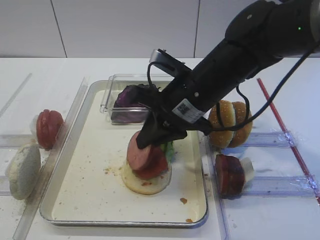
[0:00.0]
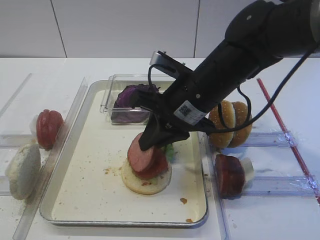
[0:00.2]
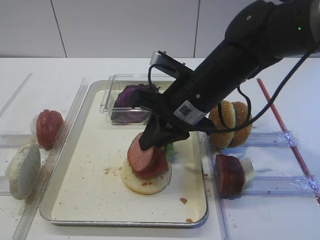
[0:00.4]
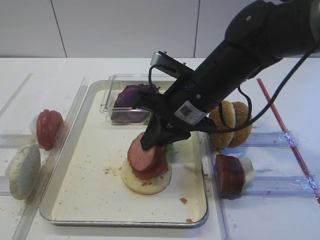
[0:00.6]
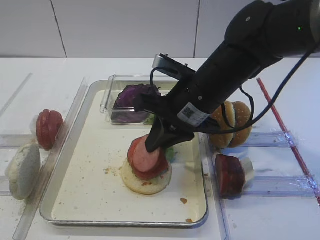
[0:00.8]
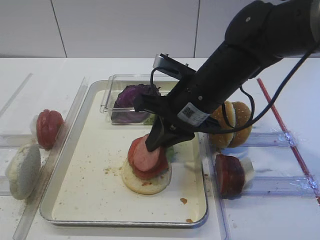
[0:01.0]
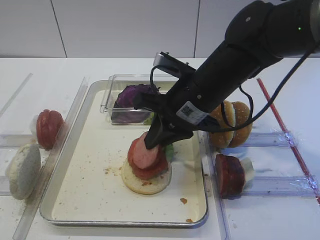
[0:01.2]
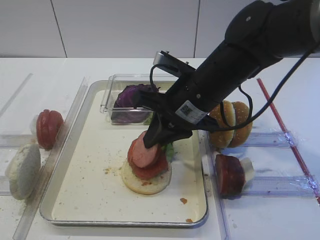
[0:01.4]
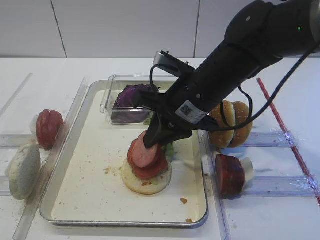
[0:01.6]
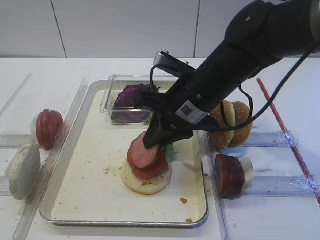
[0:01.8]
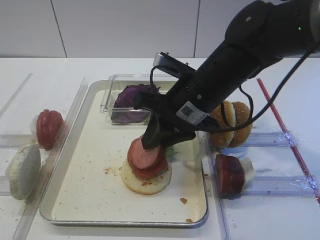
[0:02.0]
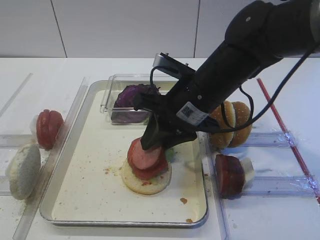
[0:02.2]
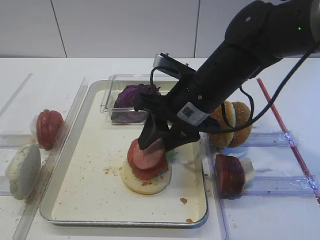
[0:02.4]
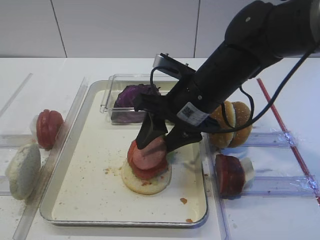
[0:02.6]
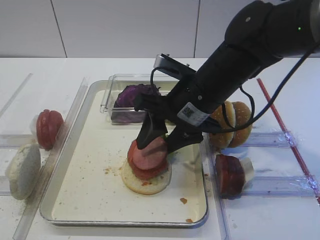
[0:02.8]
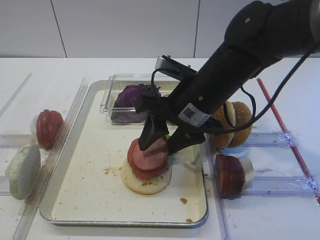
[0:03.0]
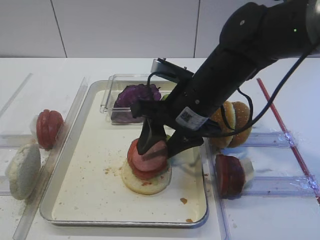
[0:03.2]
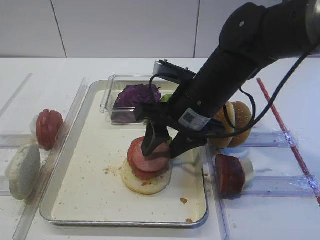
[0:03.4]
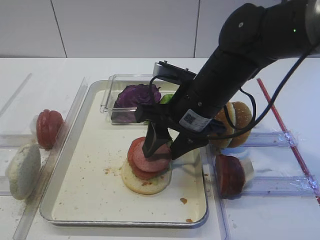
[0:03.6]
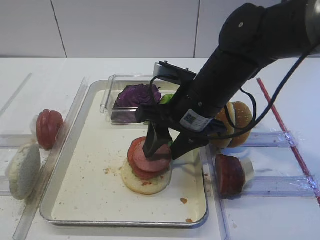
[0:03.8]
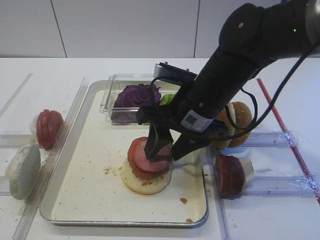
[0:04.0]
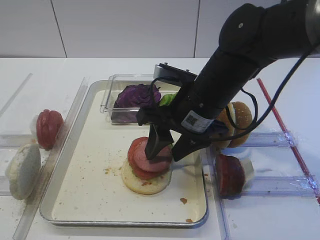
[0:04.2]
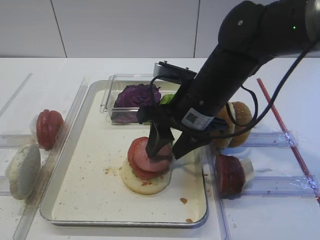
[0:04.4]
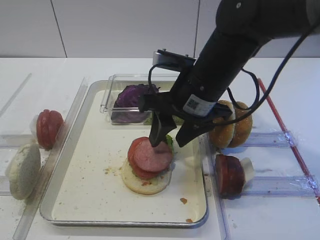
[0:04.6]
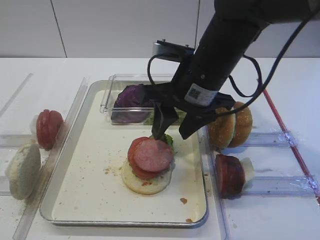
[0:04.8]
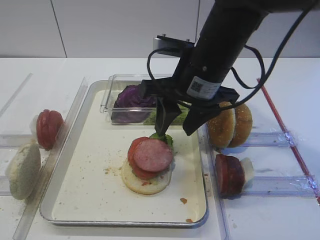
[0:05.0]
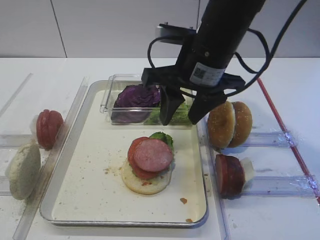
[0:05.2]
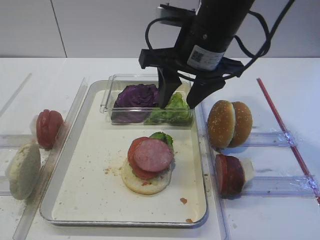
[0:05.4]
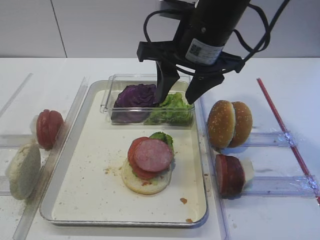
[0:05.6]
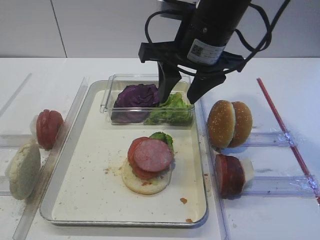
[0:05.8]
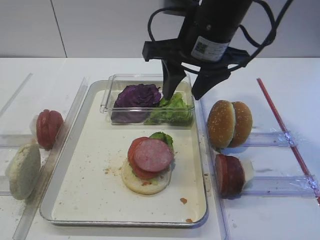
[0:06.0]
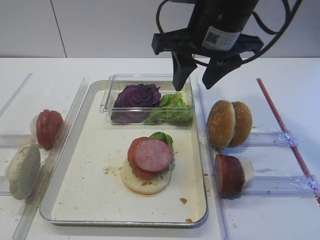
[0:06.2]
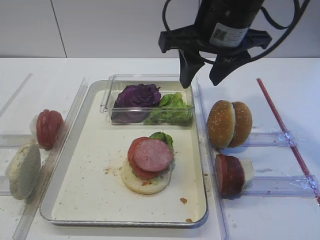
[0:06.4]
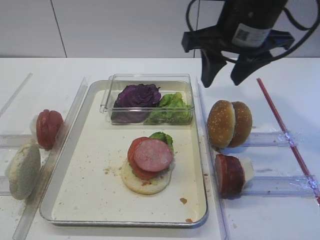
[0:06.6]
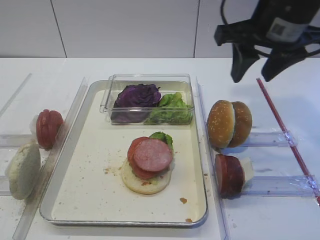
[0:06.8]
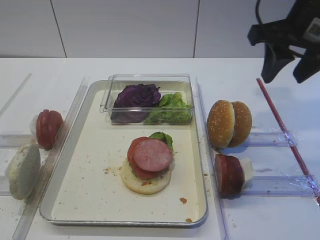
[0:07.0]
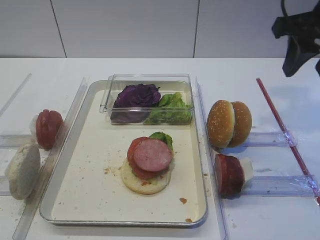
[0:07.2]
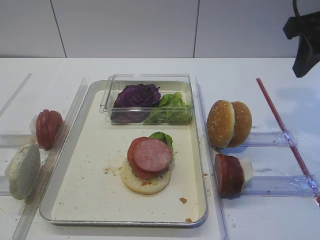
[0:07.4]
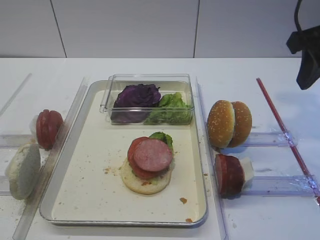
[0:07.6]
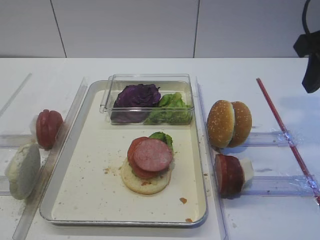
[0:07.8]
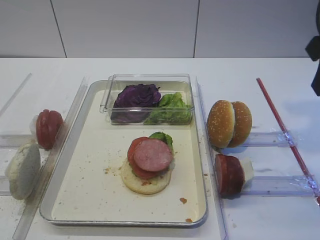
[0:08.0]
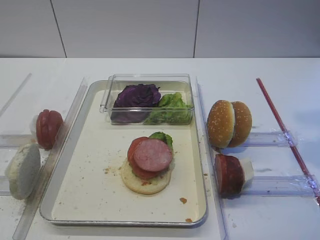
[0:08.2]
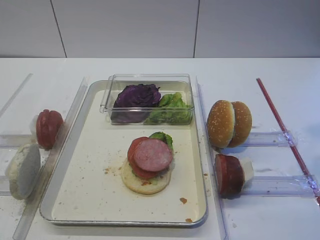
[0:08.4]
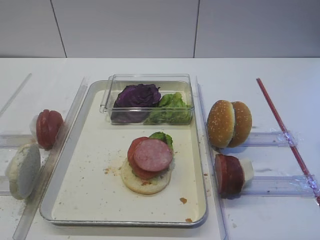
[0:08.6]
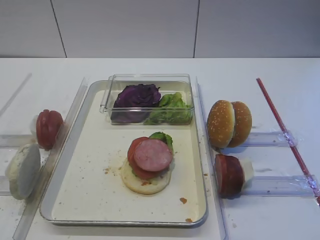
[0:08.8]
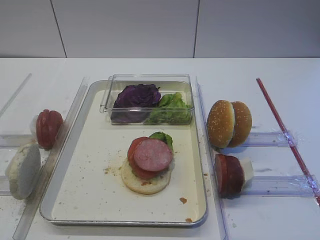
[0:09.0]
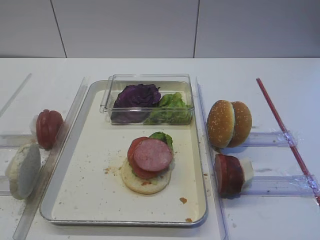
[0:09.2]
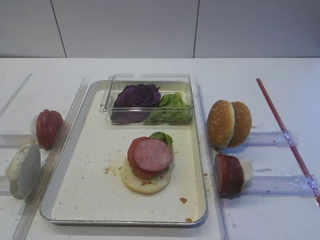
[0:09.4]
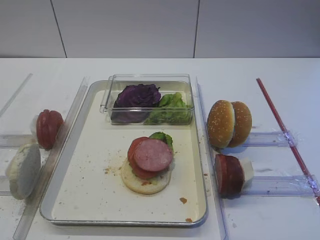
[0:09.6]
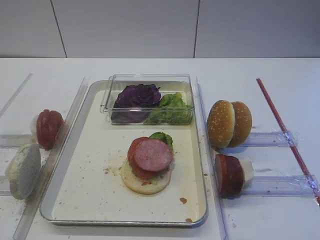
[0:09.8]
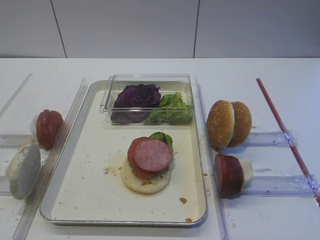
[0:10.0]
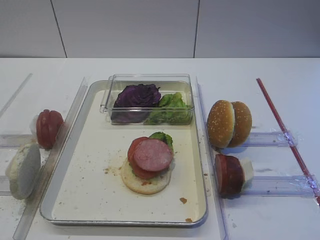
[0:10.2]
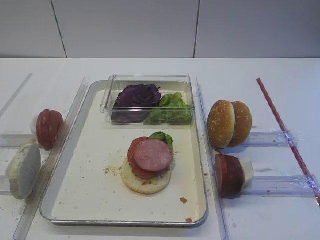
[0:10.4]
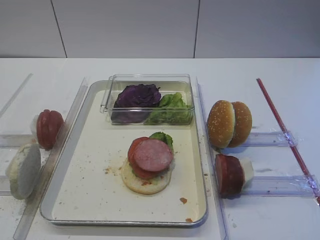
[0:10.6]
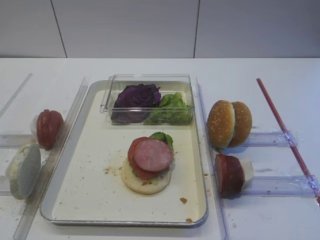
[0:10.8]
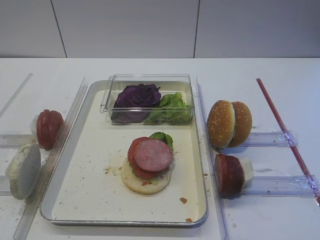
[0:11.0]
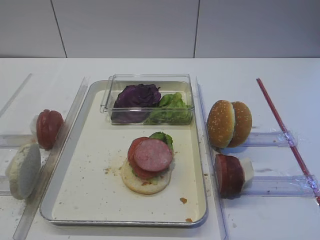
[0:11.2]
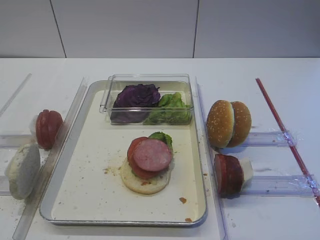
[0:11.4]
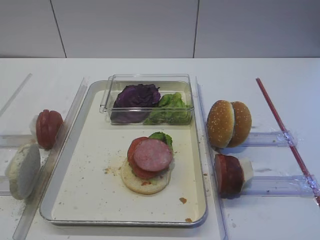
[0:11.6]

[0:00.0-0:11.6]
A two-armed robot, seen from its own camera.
Step, 0:00.0 to 0:04.4: Place the cutlet on the tomato slice with the right gripper.
0:00.0 to 0:01.4: The grippers move only a little.
0:01.4 to 0:02.8: The right gripper opens its fingers.
0:02.8 to 0:04.4: The grippers move only a little.
0:04.4 to 0:05.8: The right gripper travels upward by roughly 10 cm.
0:05.8 to 0:07.2: The right gripper travels to the right by about 15 cm.
0:07.2 to 0:08.8: The right gripper is displaced backward by roughly 20 cm.
0:10.2 to 0:11.6: The two grippers keep their place.

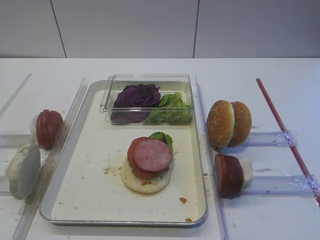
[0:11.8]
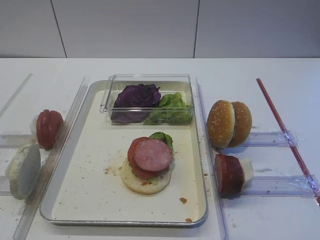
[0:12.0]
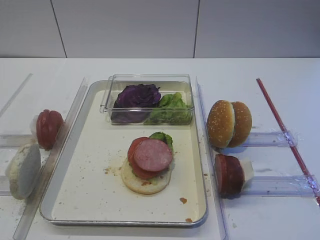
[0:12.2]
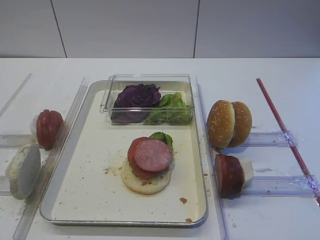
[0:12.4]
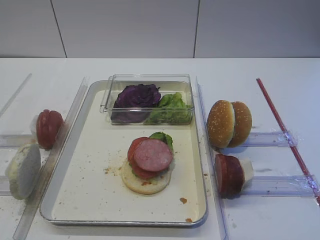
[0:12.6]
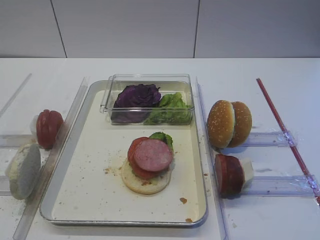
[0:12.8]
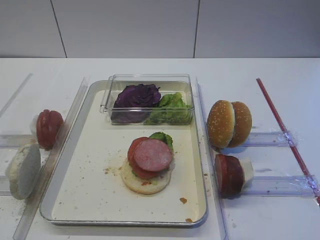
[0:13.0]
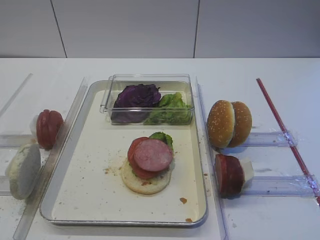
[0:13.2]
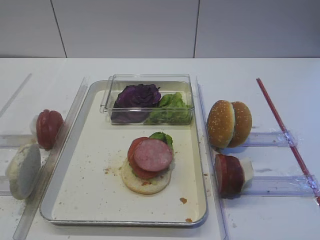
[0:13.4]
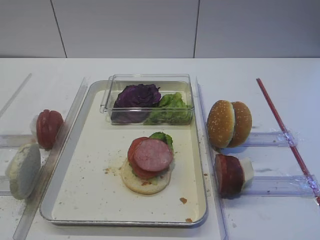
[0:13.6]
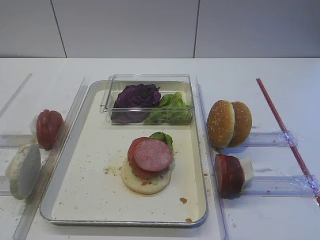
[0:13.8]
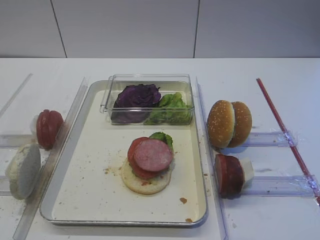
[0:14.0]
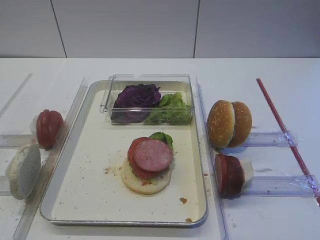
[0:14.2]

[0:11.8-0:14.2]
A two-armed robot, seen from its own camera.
0:11.8 to 0:14.2: The two grippers keep their place.

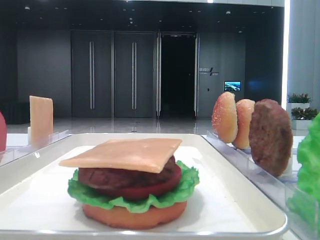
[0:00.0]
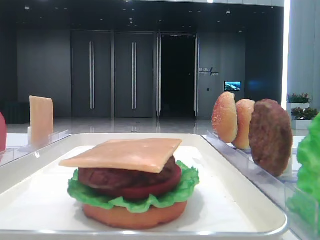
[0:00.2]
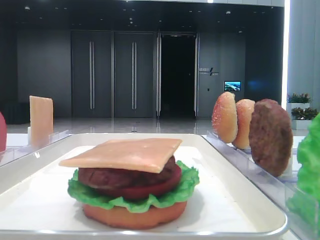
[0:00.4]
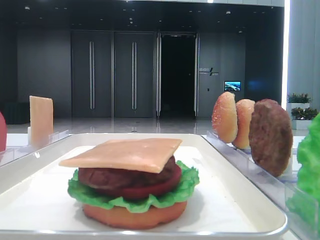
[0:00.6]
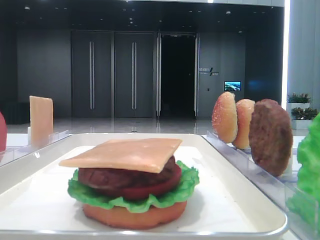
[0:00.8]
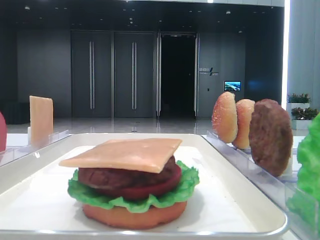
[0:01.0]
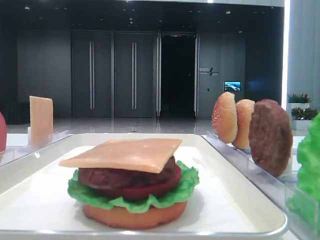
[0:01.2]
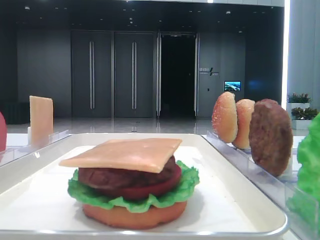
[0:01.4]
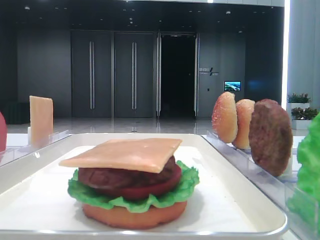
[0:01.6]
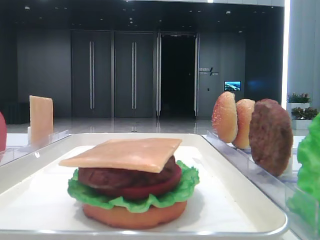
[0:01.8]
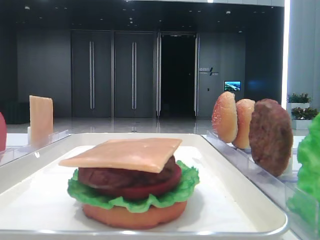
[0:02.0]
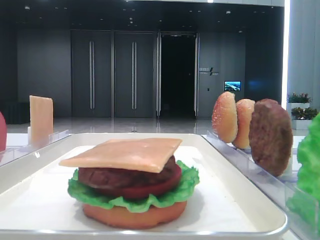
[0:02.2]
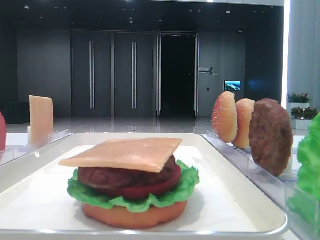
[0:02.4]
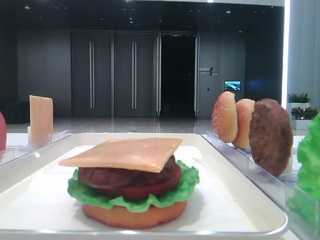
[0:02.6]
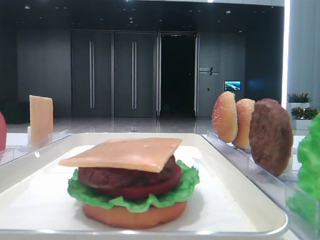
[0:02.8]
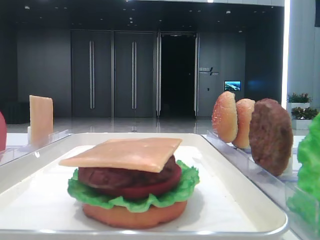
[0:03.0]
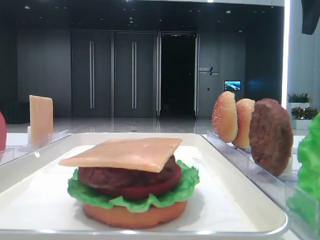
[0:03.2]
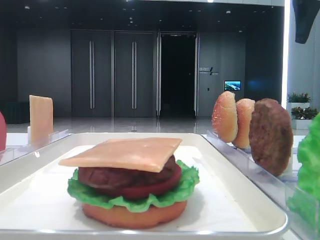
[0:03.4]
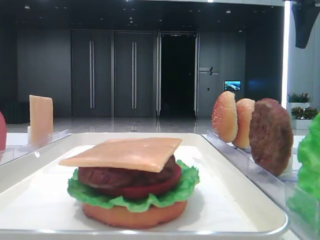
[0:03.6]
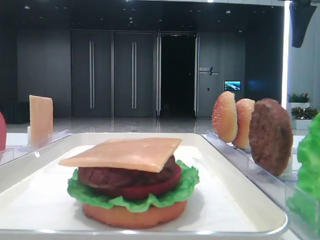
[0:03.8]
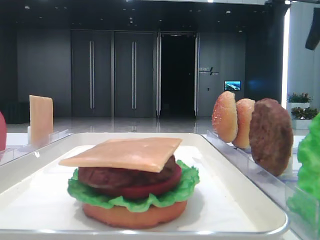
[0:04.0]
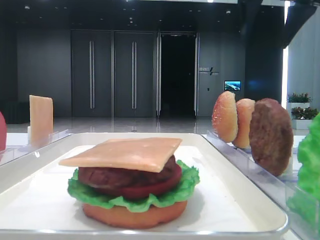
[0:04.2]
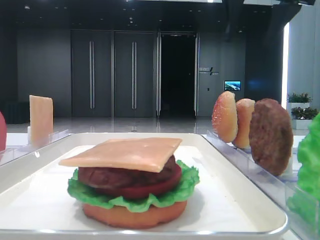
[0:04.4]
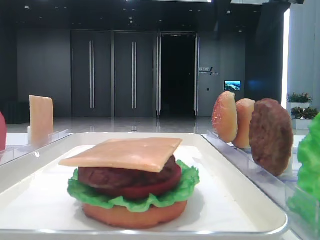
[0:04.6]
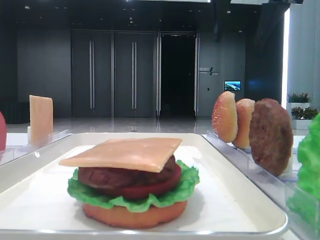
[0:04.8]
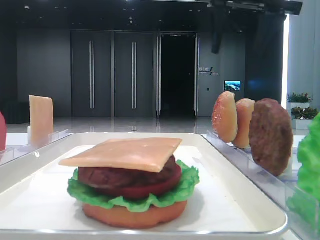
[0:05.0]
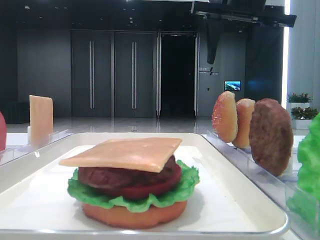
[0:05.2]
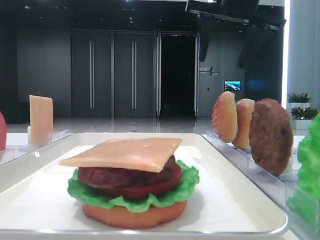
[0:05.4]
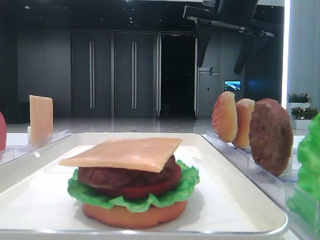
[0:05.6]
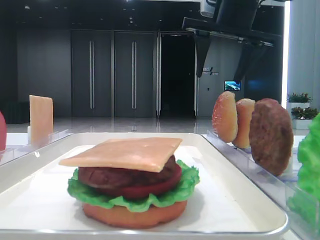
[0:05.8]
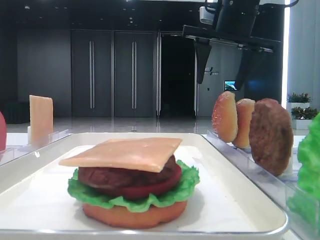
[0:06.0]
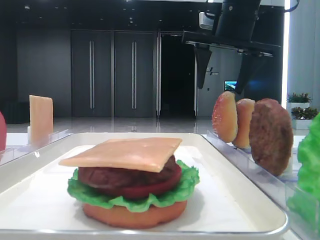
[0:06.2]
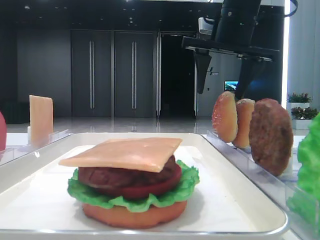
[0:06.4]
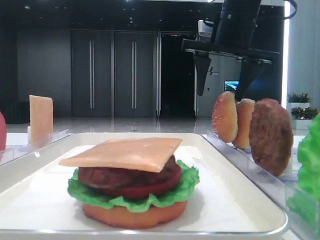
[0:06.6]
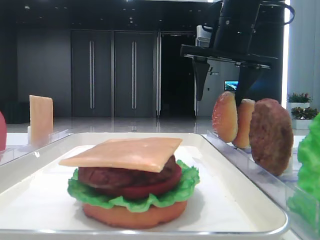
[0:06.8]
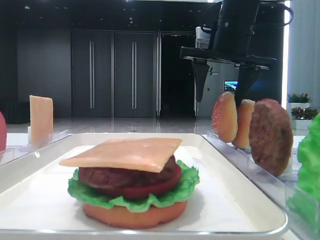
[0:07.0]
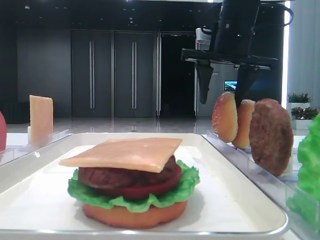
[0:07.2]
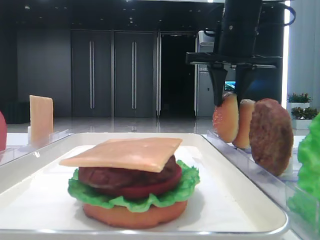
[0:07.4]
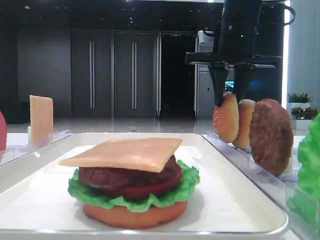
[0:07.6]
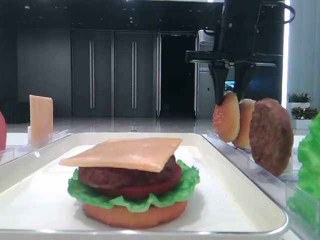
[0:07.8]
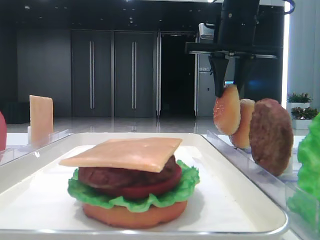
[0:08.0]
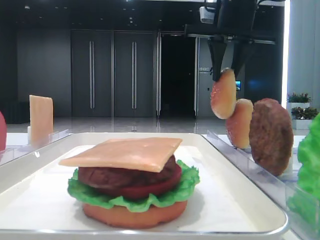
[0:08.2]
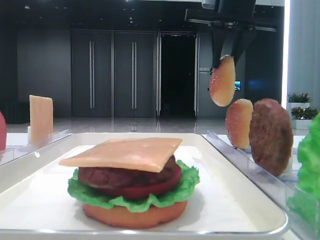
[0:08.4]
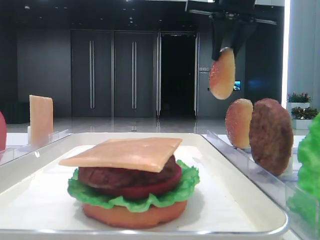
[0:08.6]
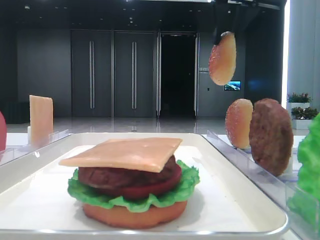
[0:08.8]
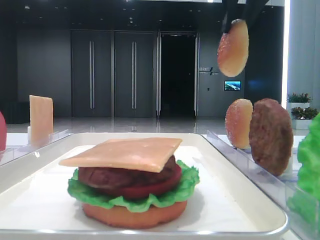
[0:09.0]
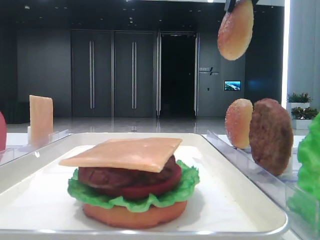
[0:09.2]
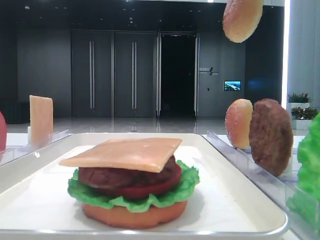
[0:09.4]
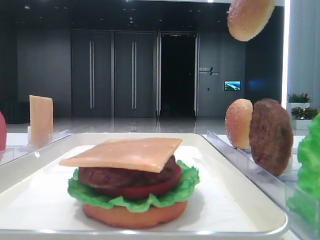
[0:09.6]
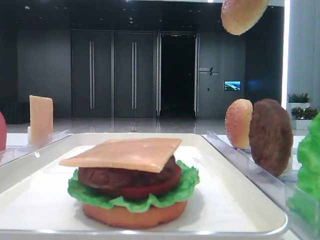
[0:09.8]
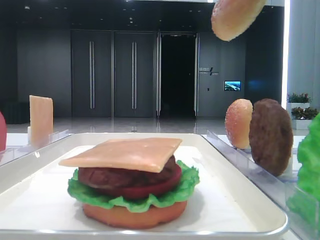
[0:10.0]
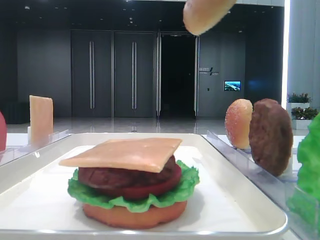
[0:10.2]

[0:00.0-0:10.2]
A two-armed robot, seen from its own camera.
Step, 0:00.0 to 0:07.6: Pick up the top bread slice with the right hand.
0:03.0 to 0:04.4: The right gripper travels to the left by roughly 10 cm.
0:04.4 to 0:05.8: The right gripper is displaced downward by about 5 cm.
0:05.8 to 0:07.2: The grippers make only small movements.
0:07.2 to 0:08.8: The right gripper is displaced upward by approximately 10 cm, and closes up.
0:08.8 to 0:10.2: The right gripper goes roughly 20 cm backward.
